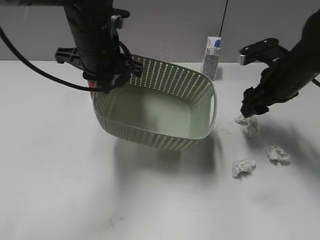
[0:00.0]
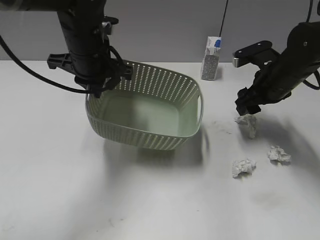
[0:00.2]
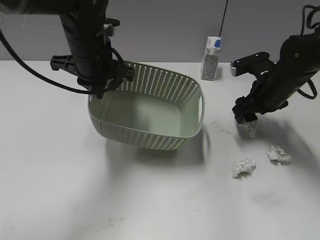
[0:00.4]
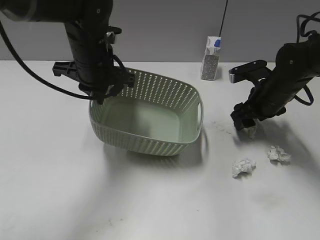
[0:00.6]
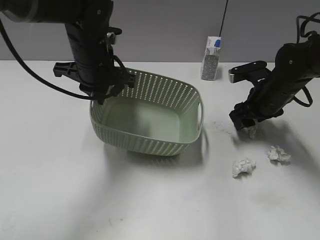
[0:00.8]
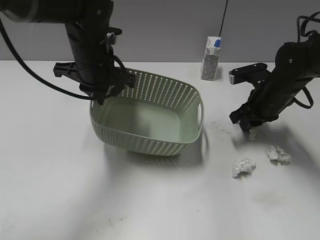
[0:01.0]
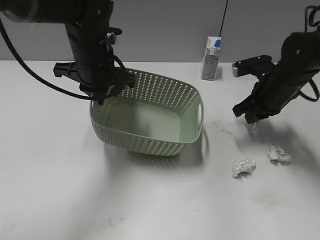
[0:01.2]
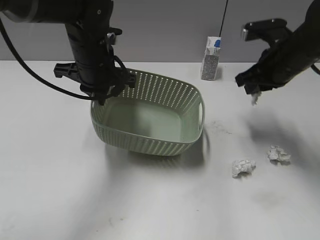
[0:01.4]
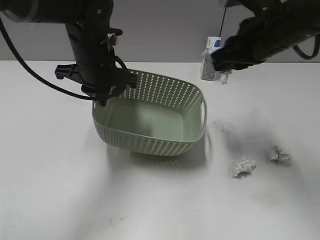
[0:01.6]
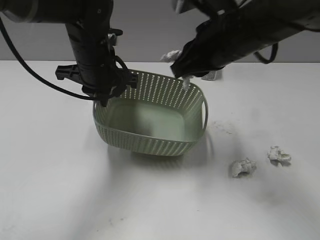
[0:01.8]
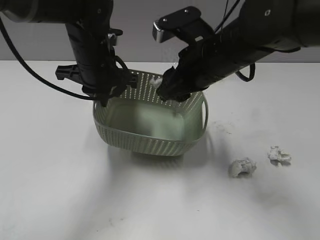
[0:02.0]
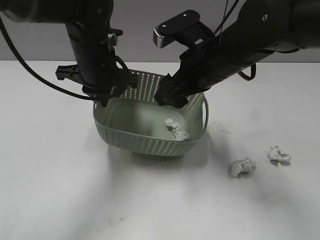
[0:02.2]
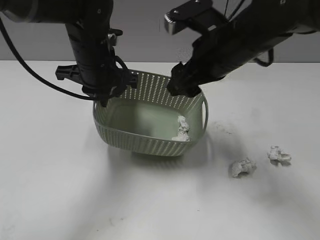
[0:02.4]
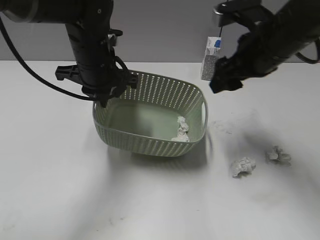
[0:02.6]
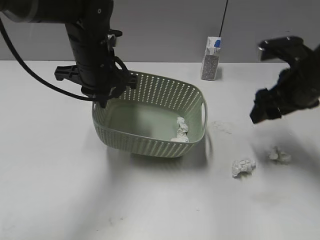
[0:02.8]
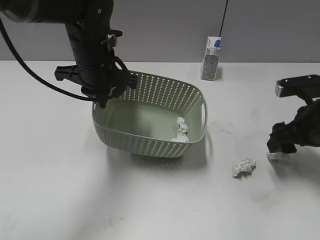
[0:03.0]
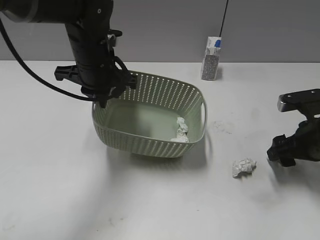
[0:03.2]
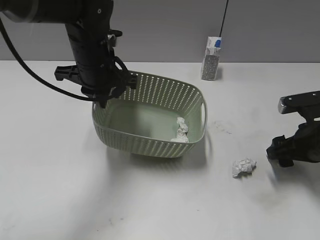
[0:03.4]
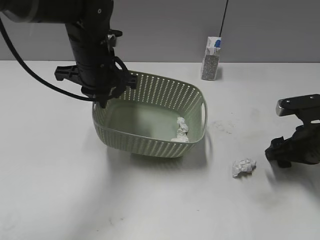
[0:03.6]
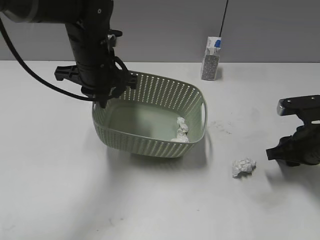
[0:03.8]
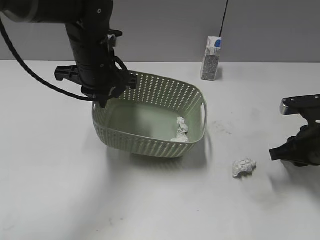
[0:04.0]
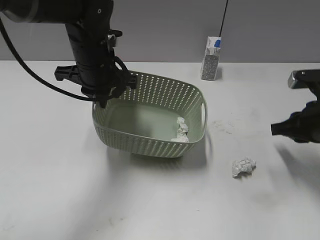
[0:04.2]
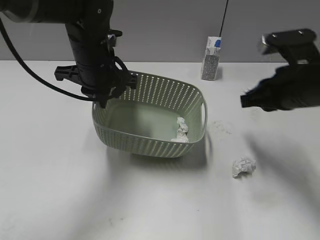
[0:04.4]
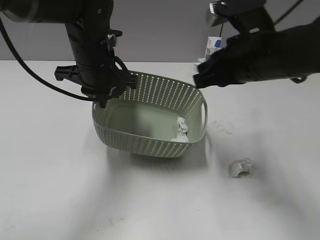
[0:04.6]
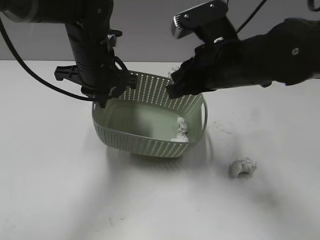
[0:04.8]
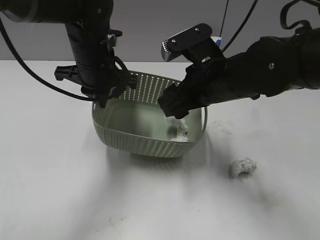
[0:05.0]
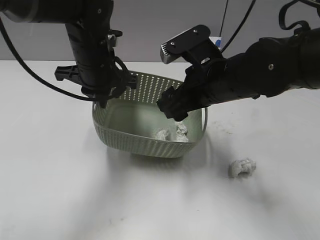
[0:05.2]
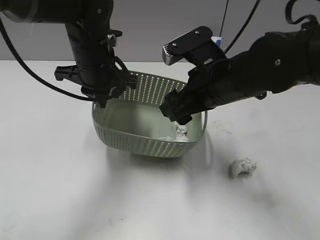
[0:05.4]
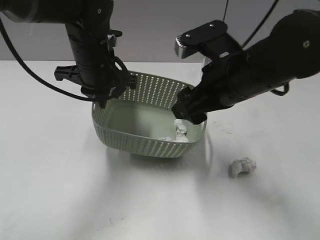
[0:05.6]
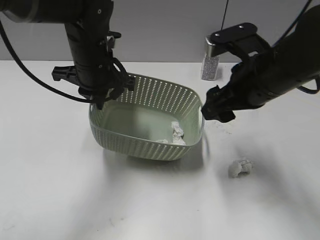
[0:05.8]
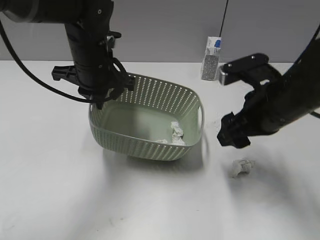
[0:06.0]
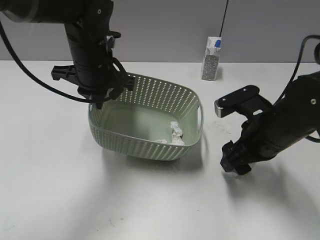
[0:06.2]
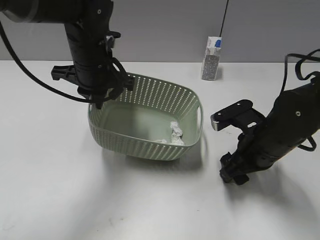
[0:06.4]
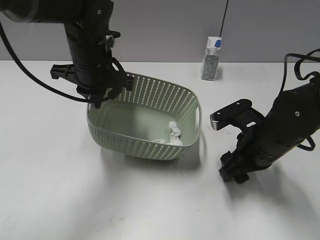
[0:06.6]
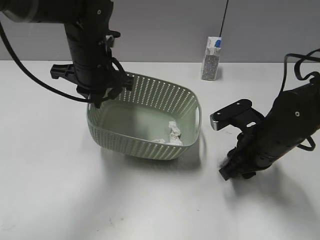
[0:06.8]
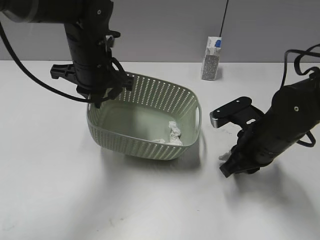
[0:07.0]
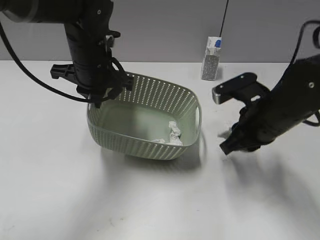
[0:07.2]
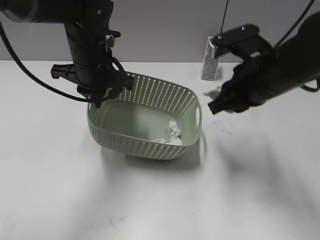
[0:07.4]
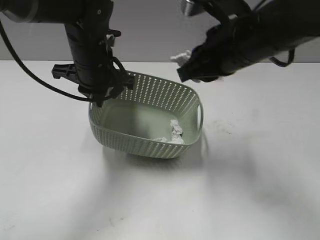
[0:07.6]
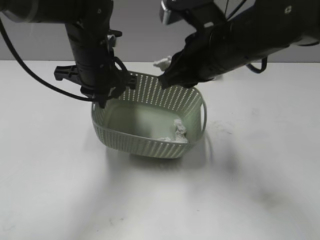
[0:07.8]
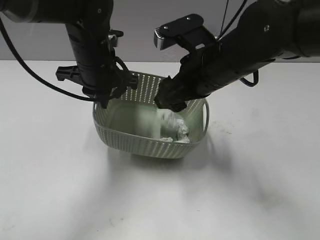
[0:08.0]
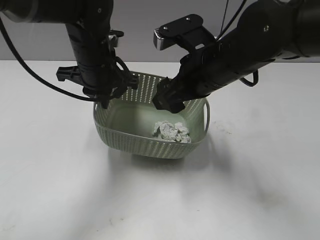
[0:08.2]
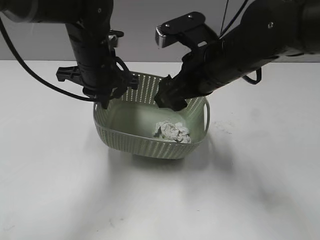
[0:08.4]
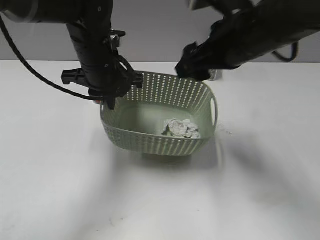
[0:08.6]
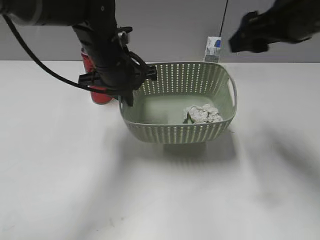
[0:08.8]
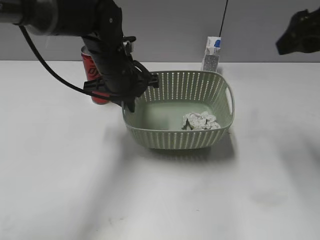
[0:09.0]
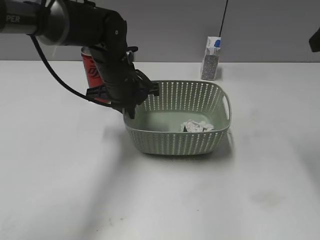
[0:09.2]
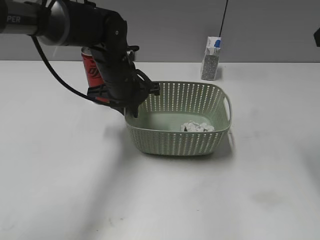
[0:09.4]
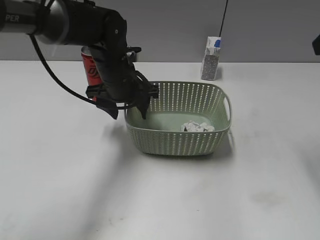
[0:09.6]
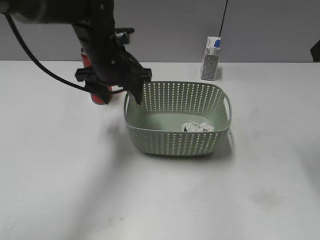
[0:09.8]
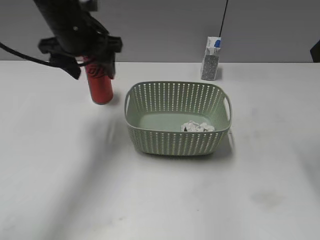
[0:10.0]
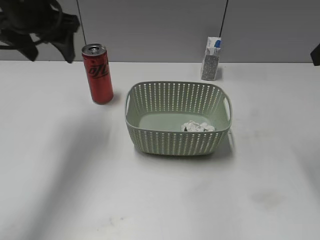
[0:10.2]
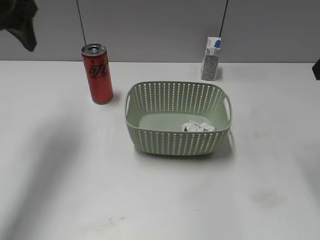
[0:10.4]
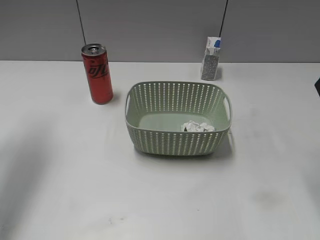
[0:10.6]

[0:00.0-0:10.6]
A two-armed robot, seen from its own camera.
Step, 0:00.0 to 0:01.0: Grasp the waste paper with right gripper.
Step, 0:01.2 to 0:02.4: Place the waste paper in the basket with right gripper.
Step, 0:02.6 to 0:04.0: Grasp the waste paper with right gripper.
Step, 0:04.2 to 0:05.8: Place the waste paper in the basket with right gripper.
Step, 0:06.0 to 0:07.0: Grasp the waste paper with right gripper.
Step, 0:07.2 to 0:08.4: Place the waste paper in the basket with right gripper.
Step, 0:08.6 to 0:09.8: Place the basket on the table with left gripper.
0:00.0 to 0:01.6: The right gripper heads upward and to the left, covering approximately 10 cm, and closes.
0:01.6 to 0:03.0: The right gripper travels downward and to the right by roughly 15 cm, and opens its fingers.
0:03.0 to 0:04.6: The right gripper shifts roughly 15 cm to the left and upward, and closes up.
0:04.6 to 0:06.0: The right gripper travels to the left and back again, about 5 cm each way, and opens its fingers.
0:06.0 to 0:07.6: The right gripper travels upward and to the left by about 10 cm, and closes.
0:07.6 to 0:09.0: The right gripper goes some 15 cm to the right and upward, and opens up.
0:09.0 to 0:10.6: The right gripper is displaced backward by some 5 cm, while the left gripper moves to the left and upward, approximately 25 cm, and opens up.

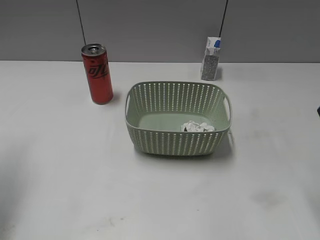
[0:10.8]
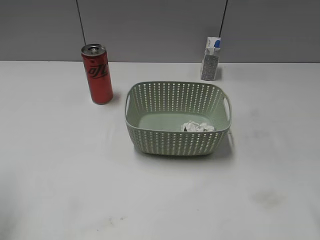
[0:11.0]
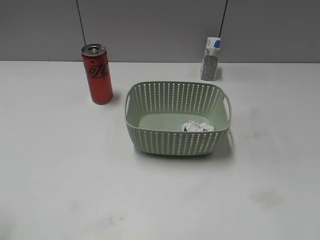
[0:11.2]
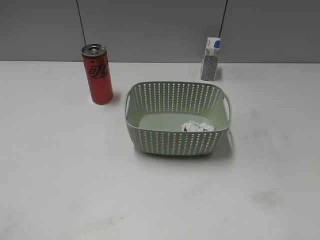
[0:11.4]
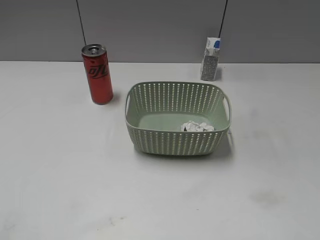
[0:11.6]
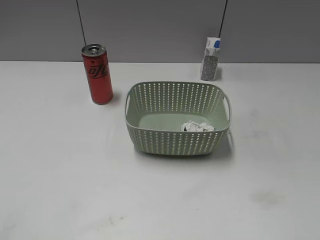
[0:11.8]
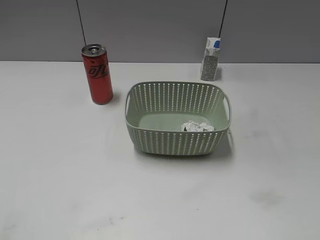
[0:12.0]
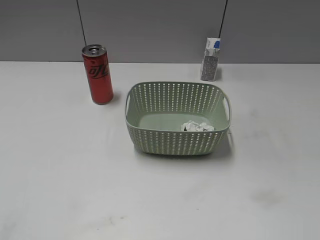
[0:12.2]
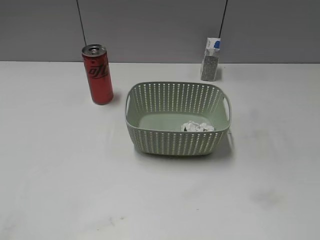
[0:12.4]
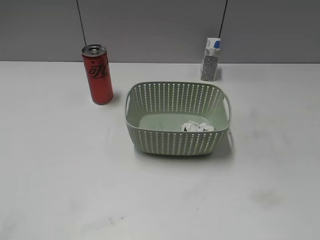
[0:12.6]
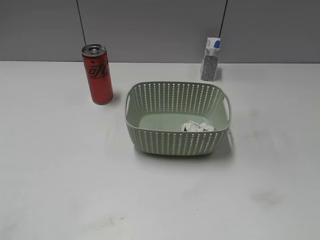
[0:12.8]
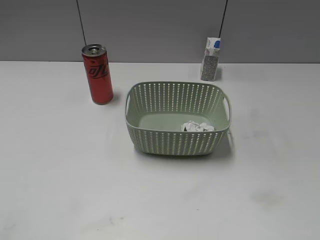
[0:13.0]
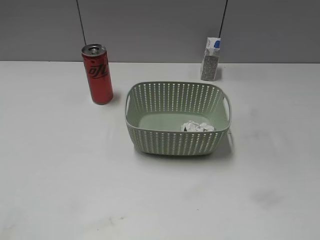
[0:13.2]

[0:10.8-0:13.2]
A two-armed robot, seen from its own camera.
0:10.8 to 0:12.0: The left gripper travels backward by some 25 cm.
